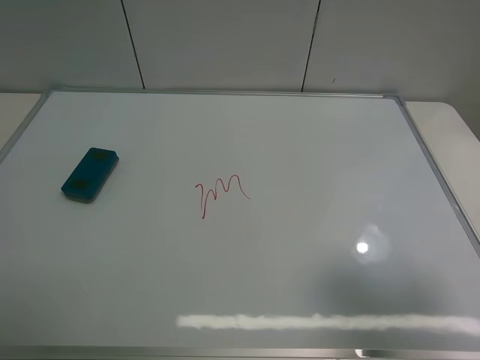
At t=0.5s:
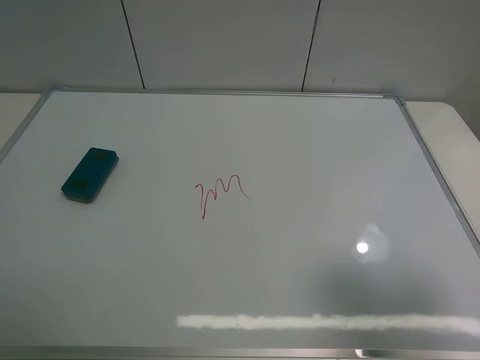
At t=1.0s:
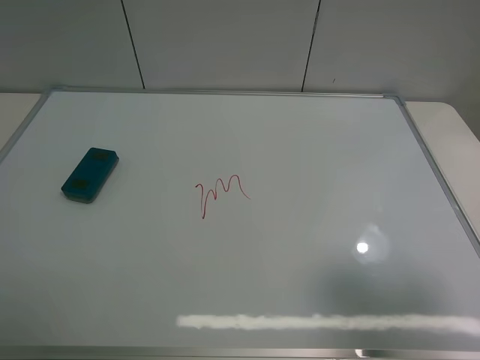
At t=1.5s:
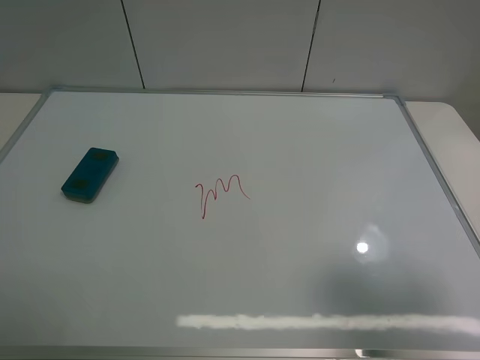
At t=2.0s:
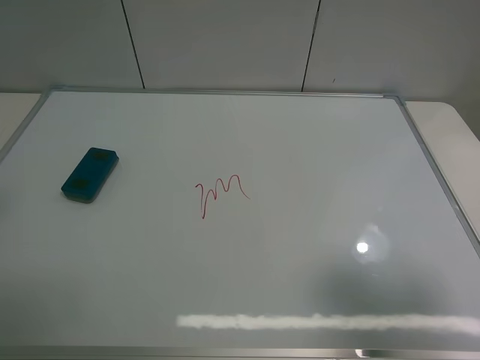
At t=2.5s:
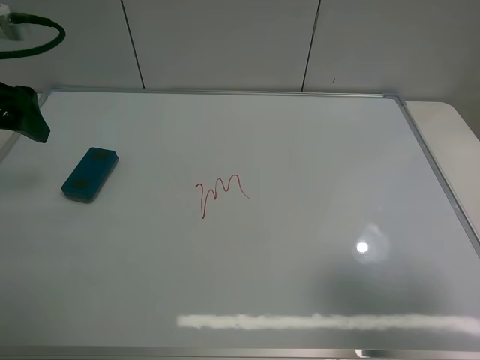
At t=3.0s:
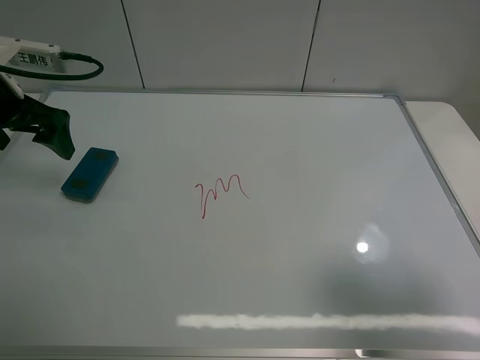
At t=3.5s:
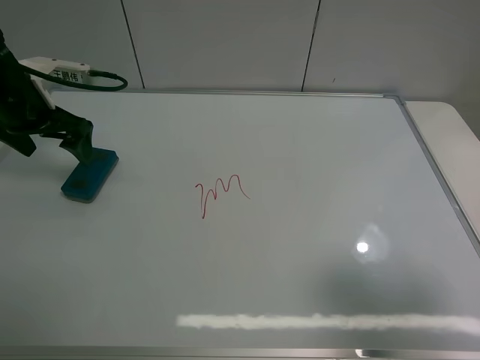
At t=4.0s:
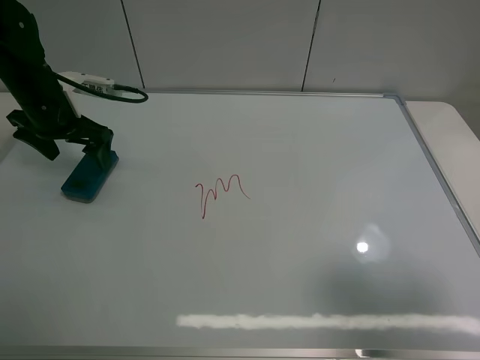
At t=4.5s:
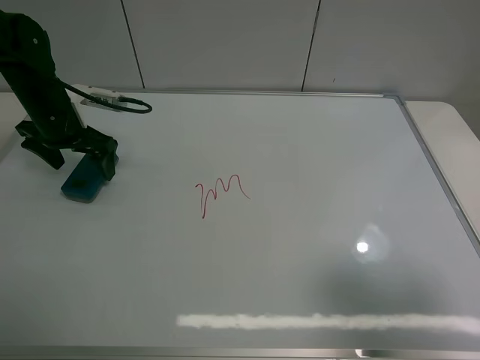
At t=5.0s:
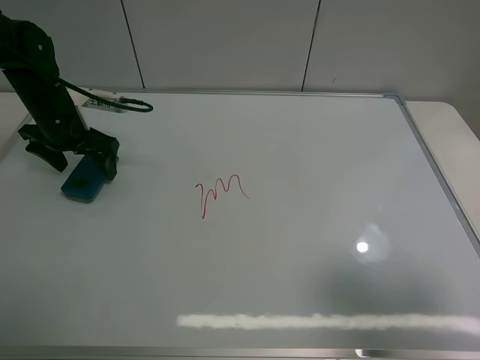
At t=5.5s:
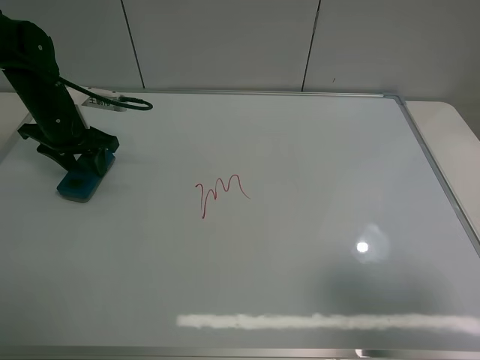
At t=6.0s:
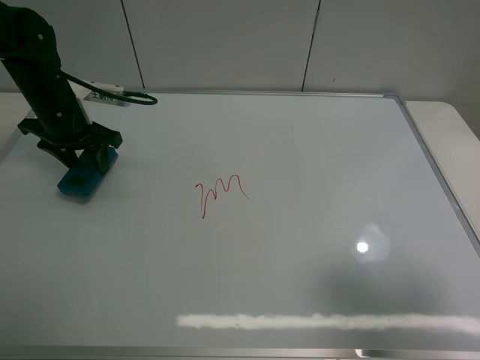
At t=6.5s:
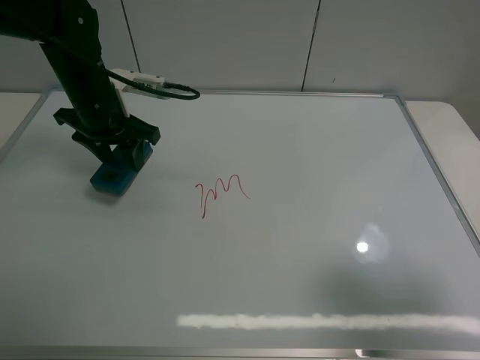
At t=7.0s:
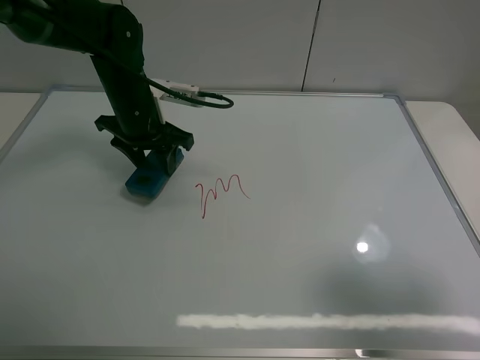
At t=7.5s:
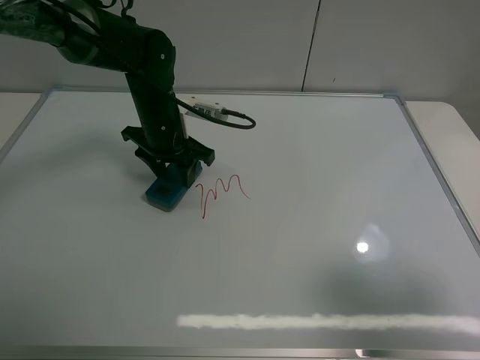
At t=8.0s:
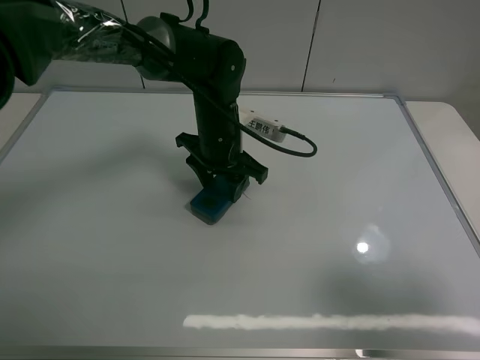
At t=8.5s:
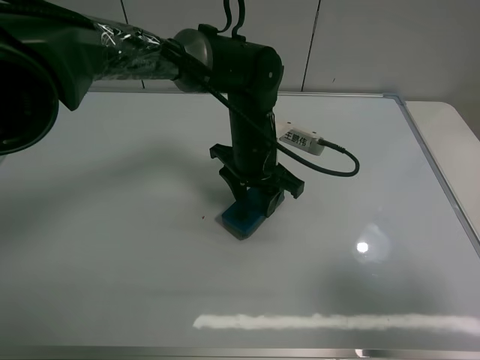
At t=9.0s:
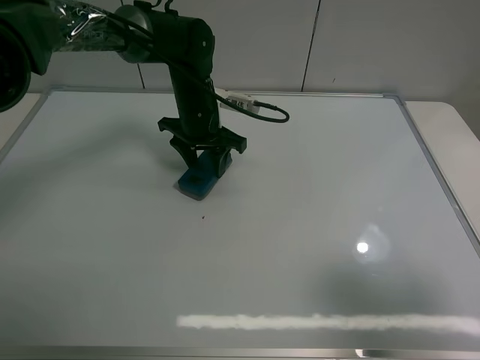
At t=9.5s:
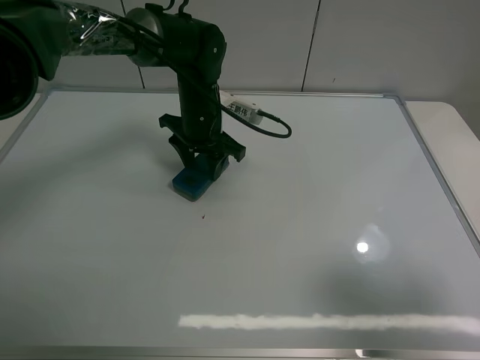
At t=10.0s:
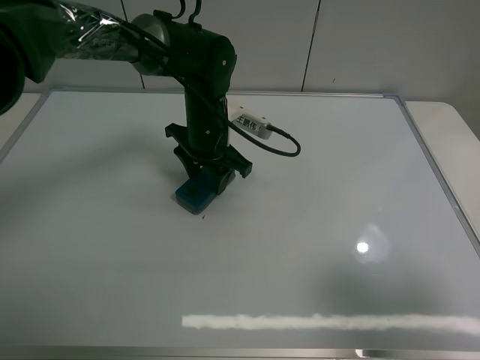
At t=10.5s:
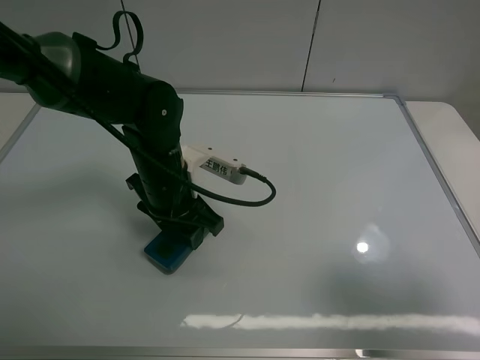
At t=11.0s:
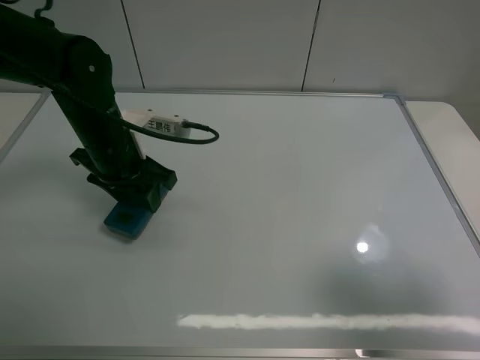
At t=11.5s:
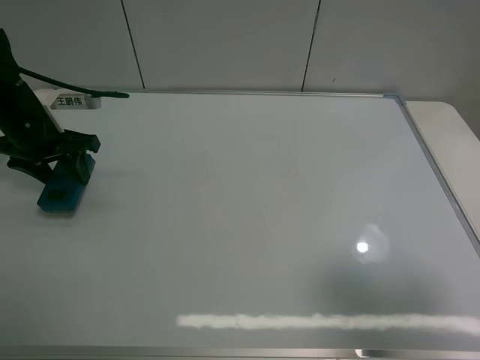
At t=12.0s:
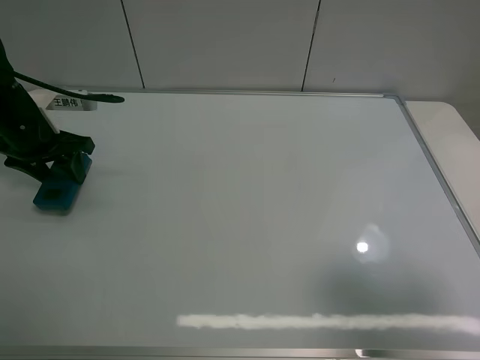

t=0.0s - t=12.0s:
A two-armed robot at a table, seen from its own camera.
Task of the whole recording: use the left claw to pick up the whiteboard eraser, wipe the notes on the whiteboard clean, and then put them back in place.
Step, t=0.0s - t=5.5s: Grasp the eraser with the left gripper.
Step, t=6.0s - t=10.5s: Grasp the eraser and wipe the blackboard with the left gripper.
t=2.0s - t=4.0s: The left gripper heads forward and downward, covering roughly 25 cm.
t=4.0s - t=6.0s: The left gripper closes its fingers.
t=6.0s - t=8.0s: The left gripper heads to the right, covering some 25 cm.
t=10.0s - t=12.0s: The left gripper travels to the left by roughly 25 cm.

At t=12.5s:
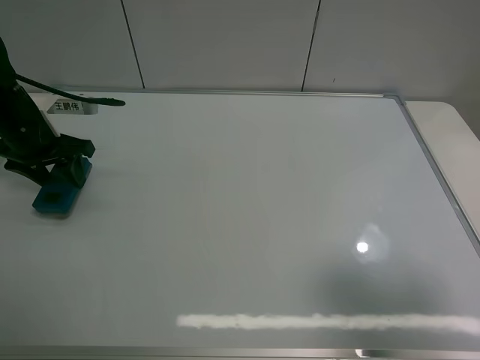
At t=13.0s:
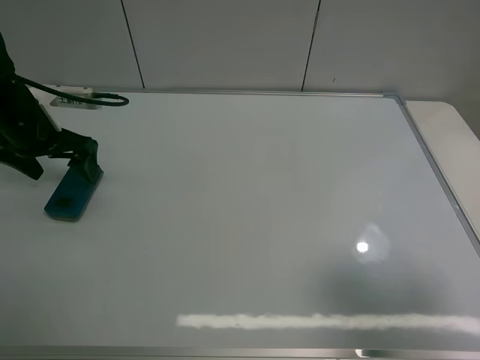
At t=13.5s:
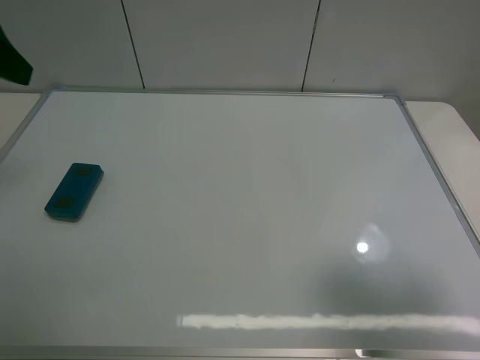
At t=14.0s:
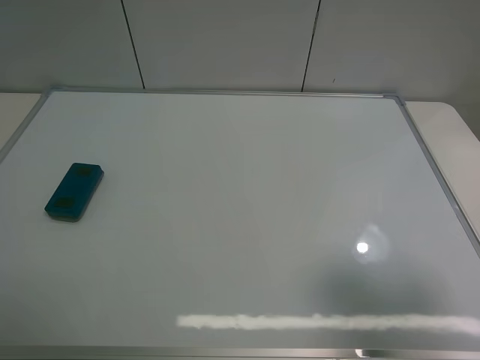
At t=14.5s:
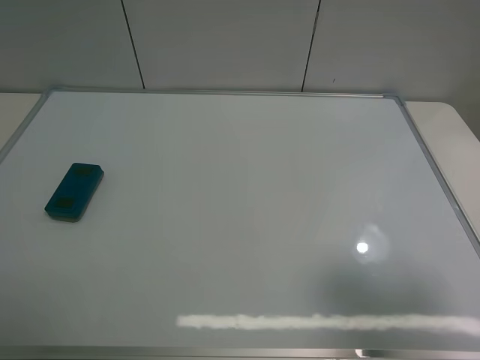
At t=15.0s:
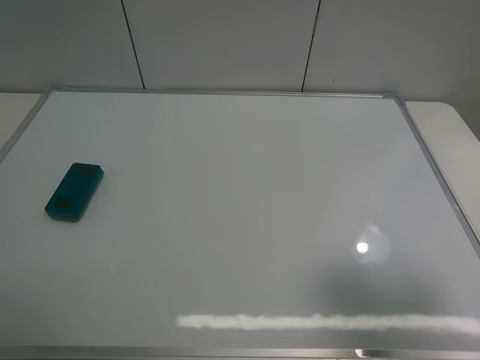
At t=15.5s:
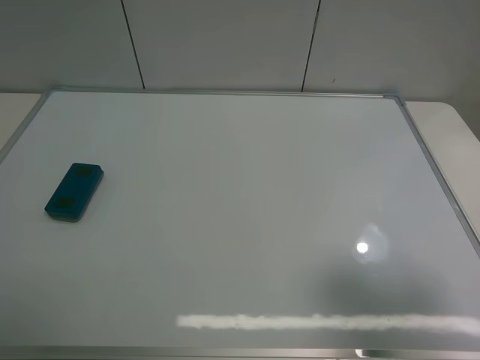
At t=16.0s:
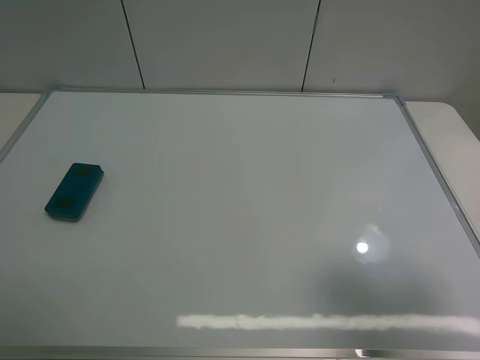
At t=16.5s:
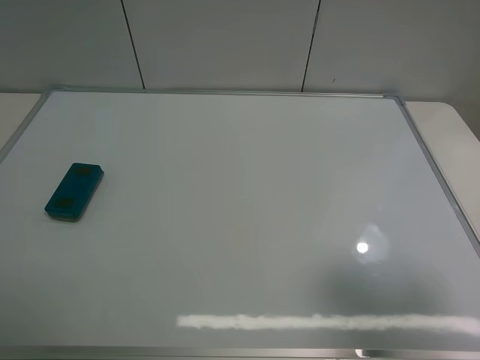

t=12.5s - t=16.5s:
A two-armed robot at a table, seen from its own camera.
Task of the whole recording: use the left claw to pick up the whiteboard eraser, wipe the notes on the whiteboard clean, and then put them back in place.
t=12.5s - t=14.5s: The left gripper goes approximately 35 cm backward, and opens its fingers.

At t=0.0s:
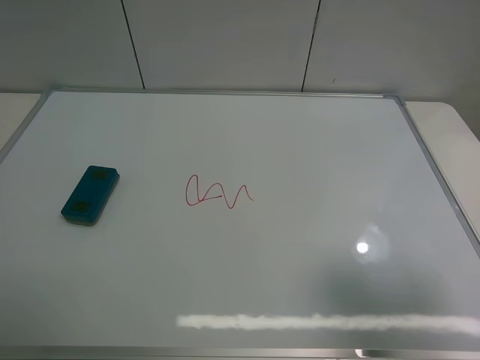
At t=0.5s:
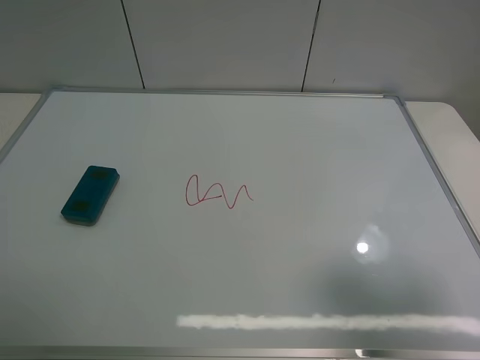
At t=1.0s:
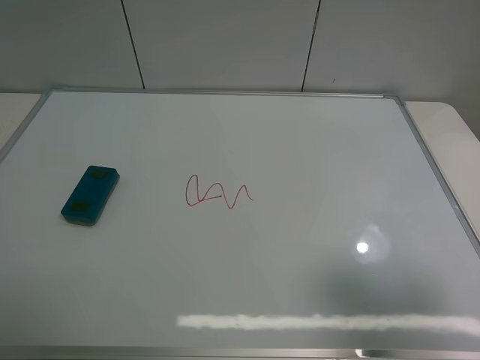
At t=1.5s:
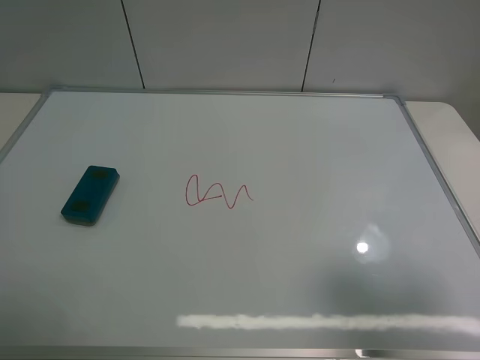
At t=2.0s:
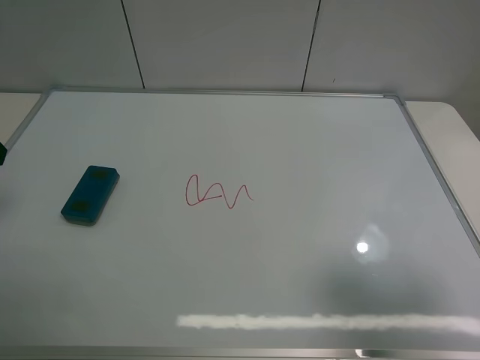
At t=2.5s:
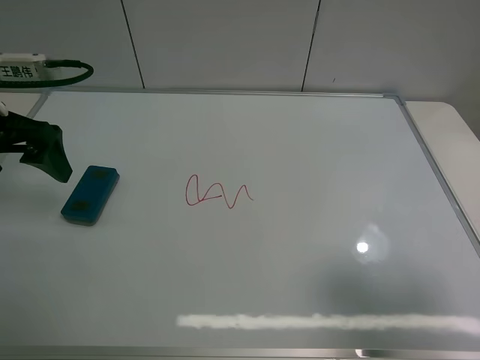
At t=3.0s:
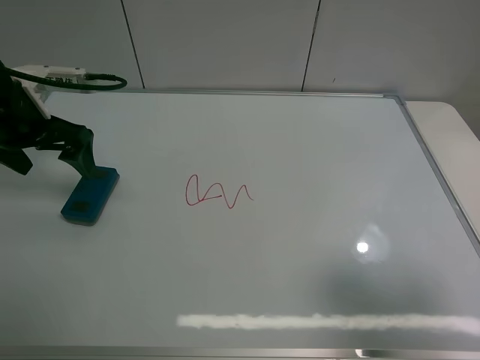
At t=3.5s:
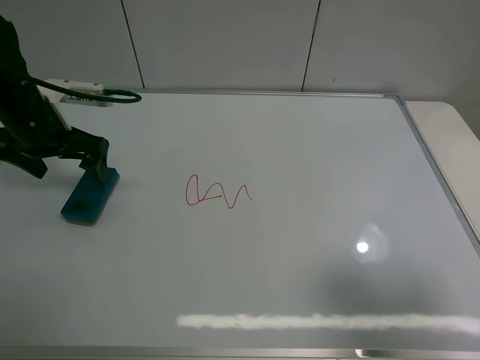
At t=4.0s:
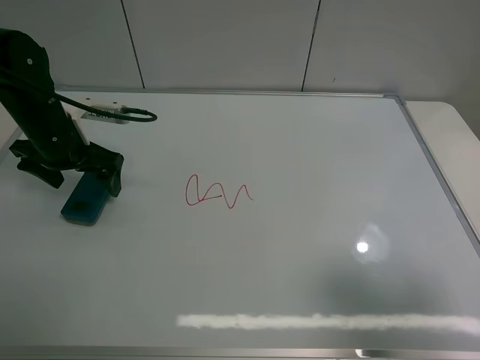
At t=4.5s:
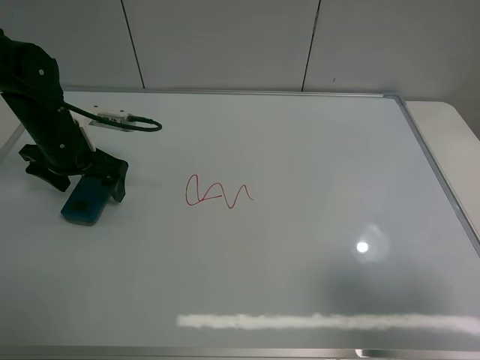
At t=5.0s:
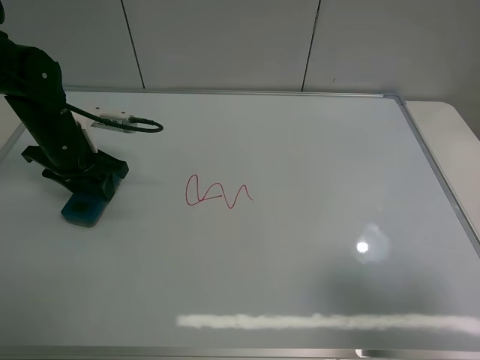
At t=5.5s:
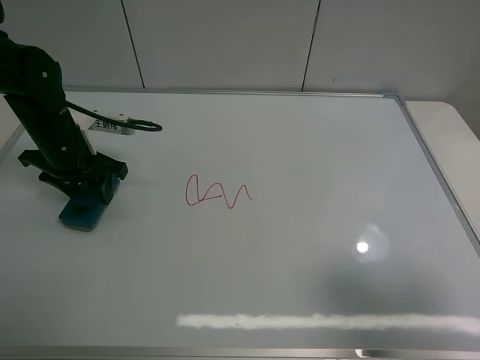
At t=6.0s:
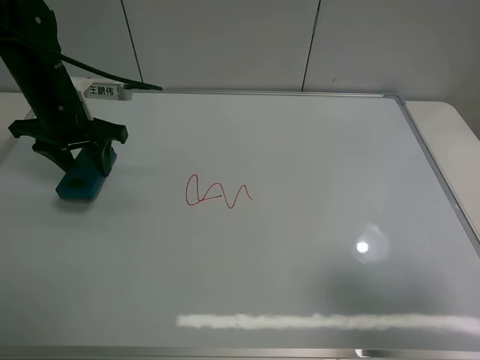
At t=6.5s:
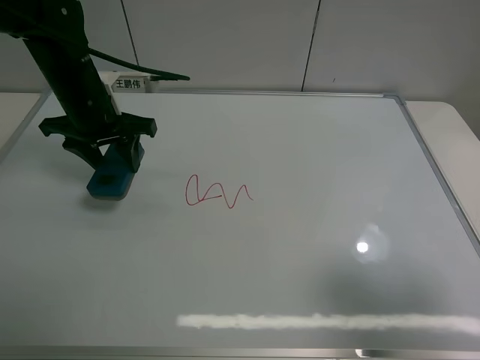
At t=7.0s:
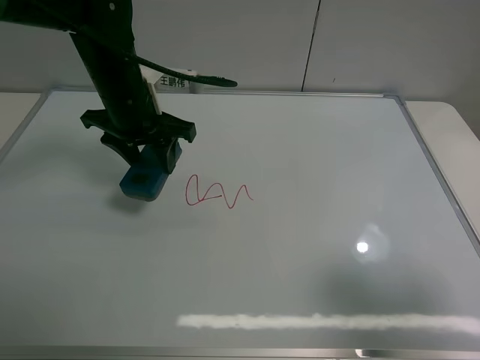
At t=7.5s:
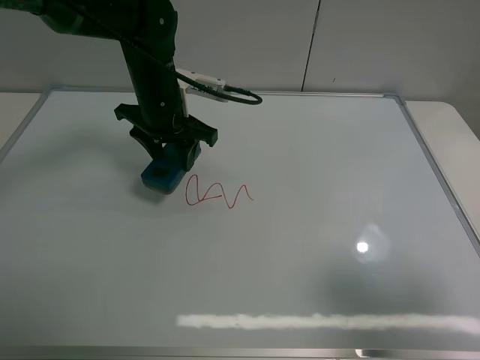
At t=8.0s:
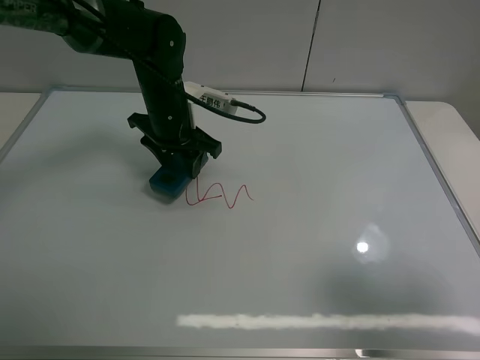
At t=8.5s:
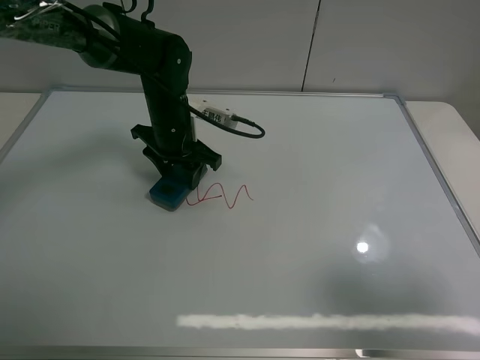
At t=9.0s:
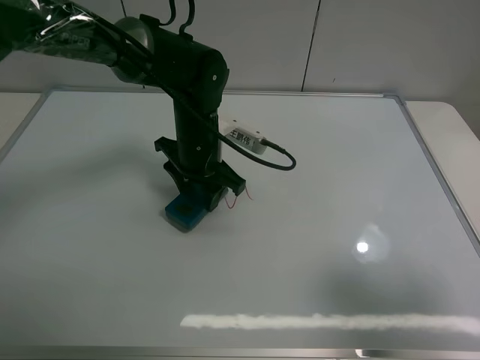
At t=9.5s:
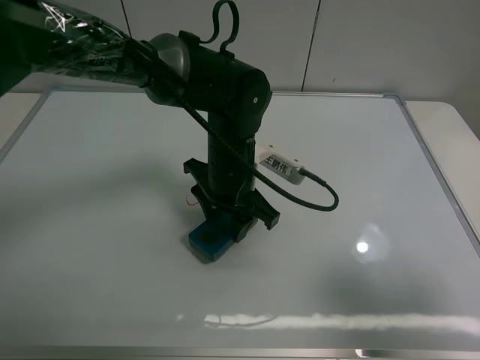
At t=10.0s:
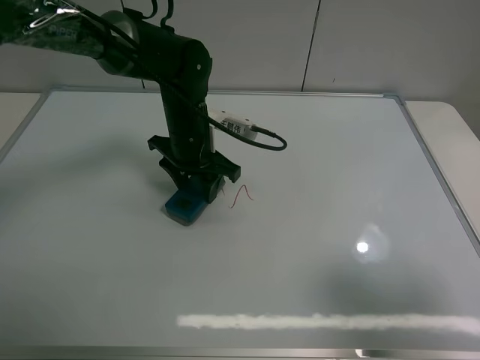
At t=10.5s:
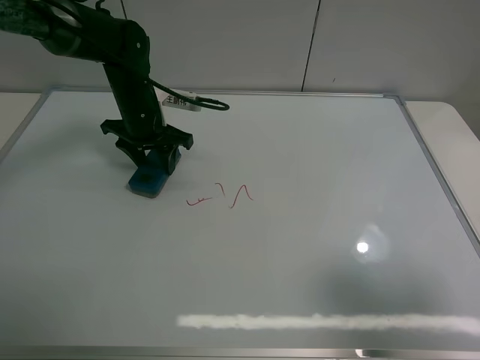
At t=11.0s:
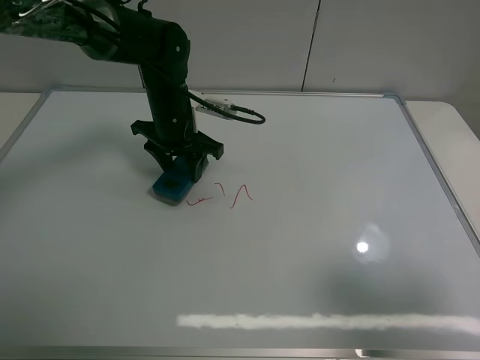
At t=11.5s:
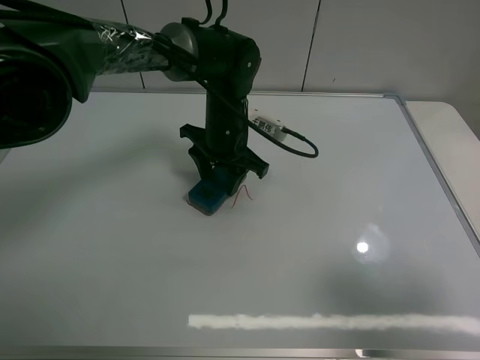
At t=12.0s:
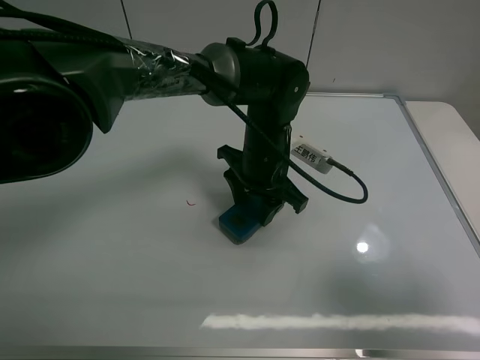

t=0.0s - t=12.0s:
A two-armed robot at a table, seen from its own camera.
Task of the whole recording: use the left claw to pick up the whiteboard eraser, wipe the notes on the whiteboard clean, and then put them back in place.
Step, t=0.0s - t=5.0s: Grasp the eraser with the left gripper.
t=2.0s - t=4.0s: The left gripper heads downward, forward and to the right, covering approximately 20 cm.
t=4.0s - t=6.0s: The left gripper closes its fingers.
t=6.0s - t=8.0s: The left gripper travels to the right by about 15 cm.
t=8.0s - t=10.0s: The left gripper goes to the right and returns, roughly 10 cm each way.
t=10.0s - t=12.0s: The left gripper moves to the right, some 10 cm.
